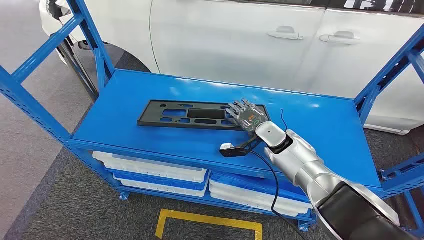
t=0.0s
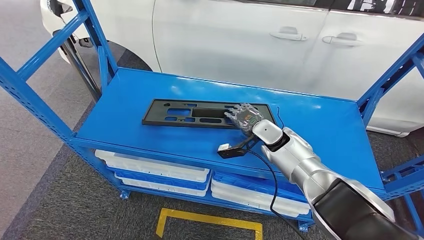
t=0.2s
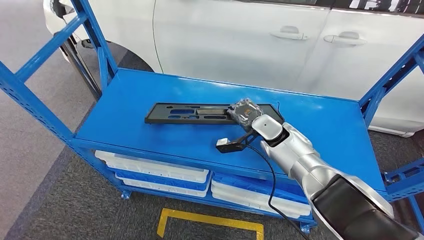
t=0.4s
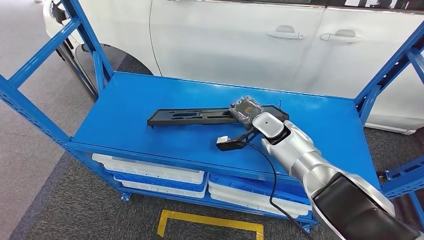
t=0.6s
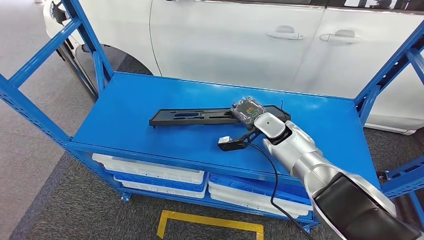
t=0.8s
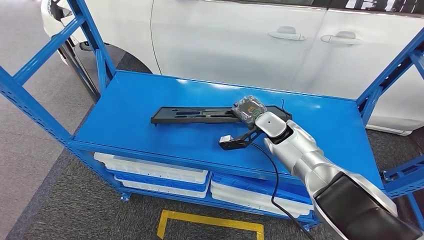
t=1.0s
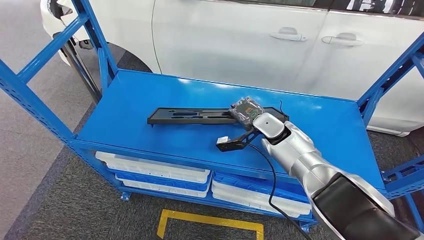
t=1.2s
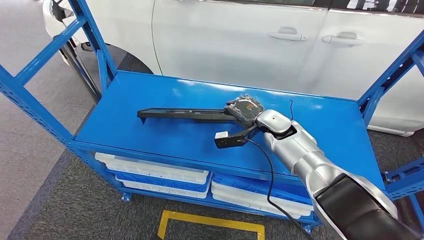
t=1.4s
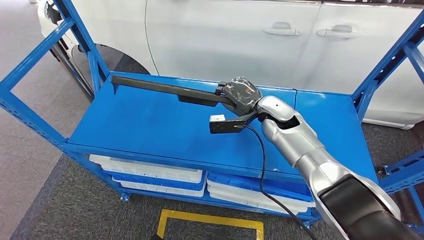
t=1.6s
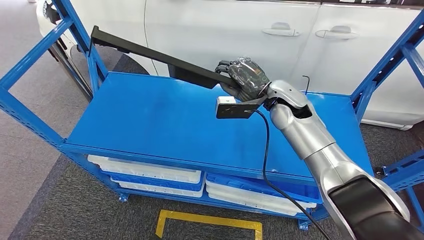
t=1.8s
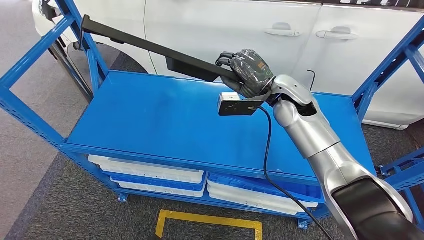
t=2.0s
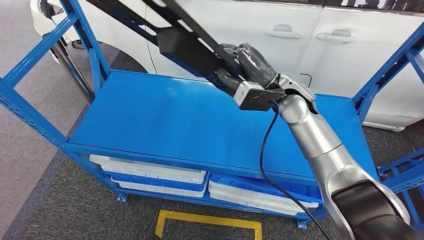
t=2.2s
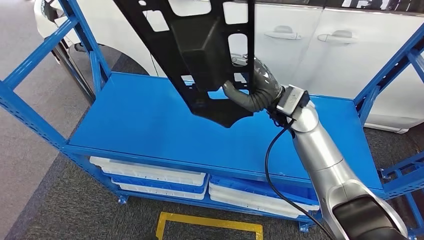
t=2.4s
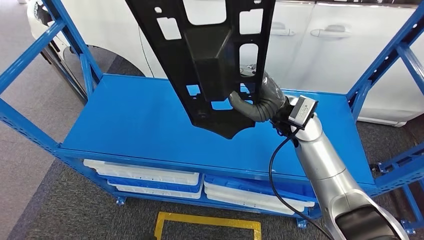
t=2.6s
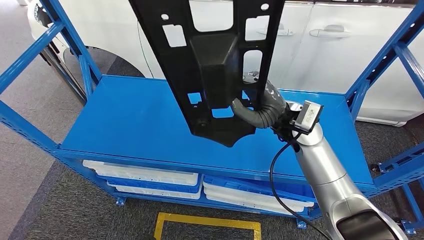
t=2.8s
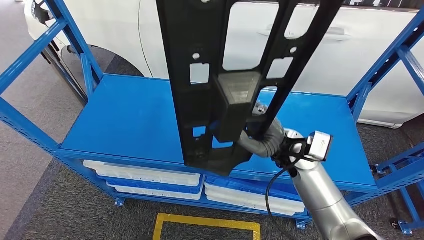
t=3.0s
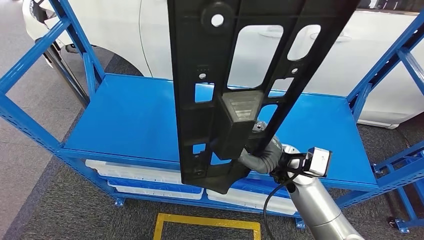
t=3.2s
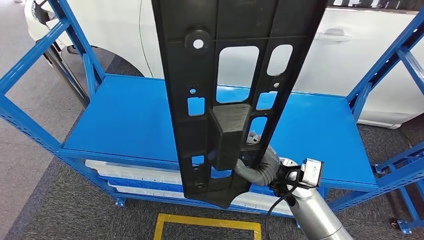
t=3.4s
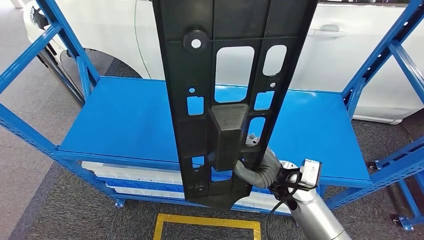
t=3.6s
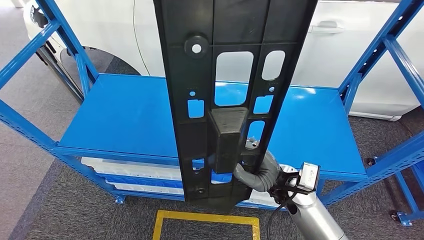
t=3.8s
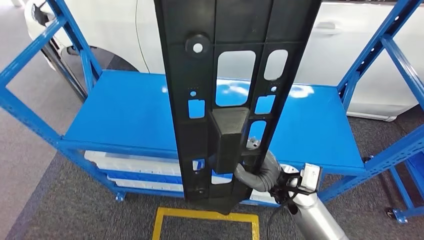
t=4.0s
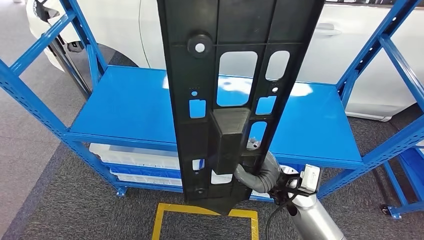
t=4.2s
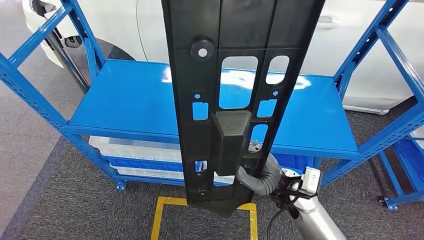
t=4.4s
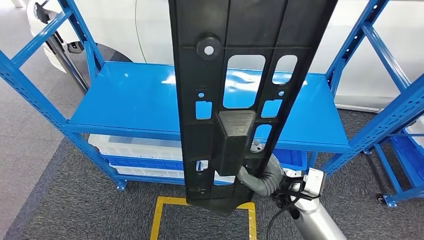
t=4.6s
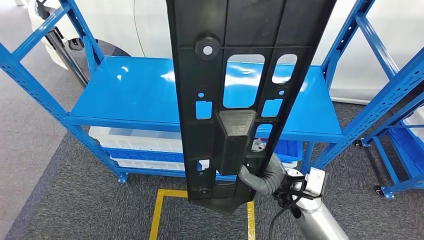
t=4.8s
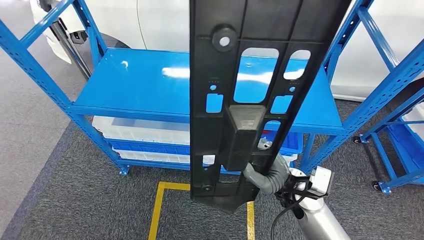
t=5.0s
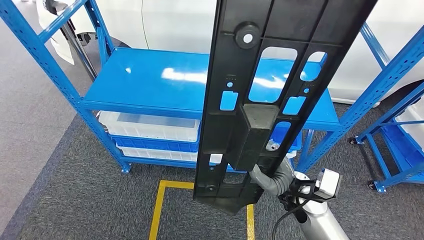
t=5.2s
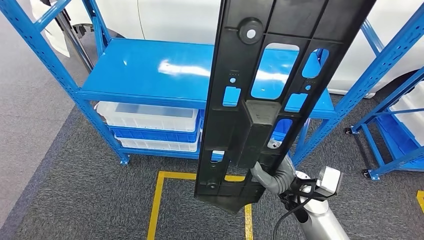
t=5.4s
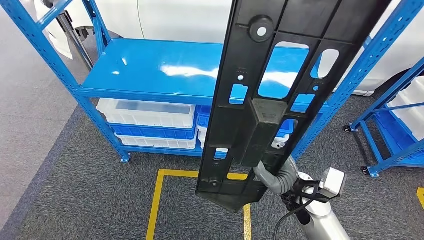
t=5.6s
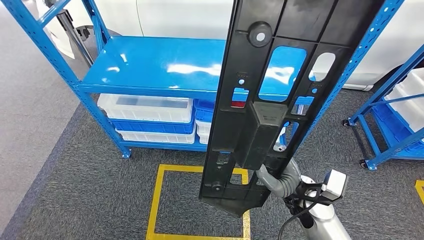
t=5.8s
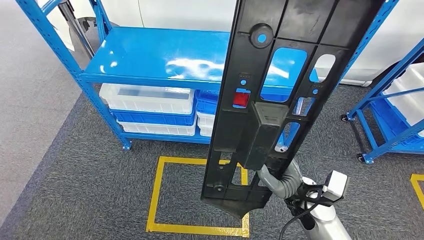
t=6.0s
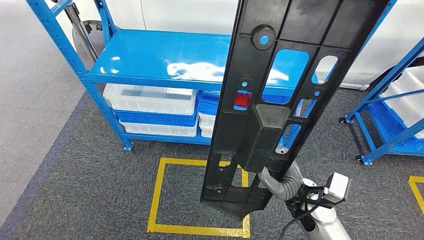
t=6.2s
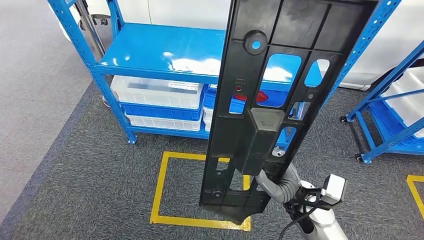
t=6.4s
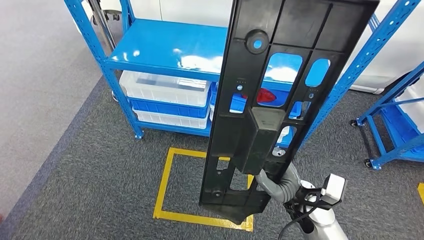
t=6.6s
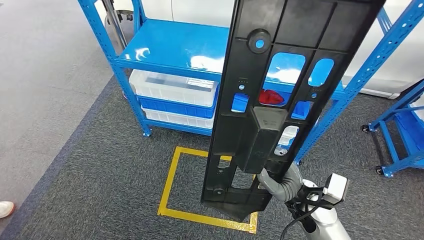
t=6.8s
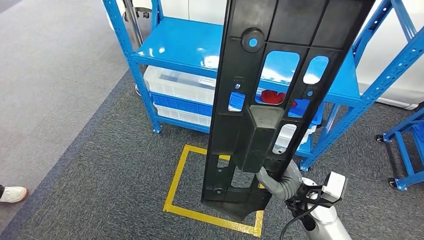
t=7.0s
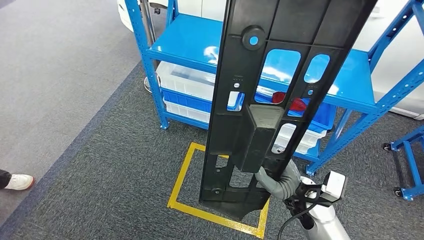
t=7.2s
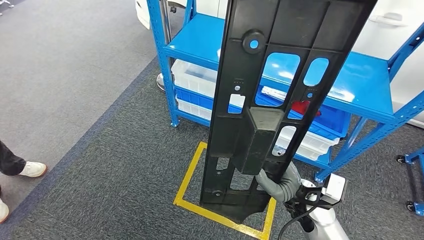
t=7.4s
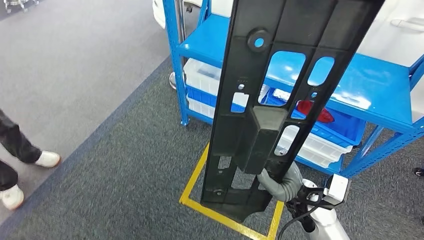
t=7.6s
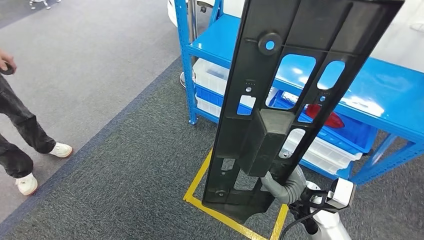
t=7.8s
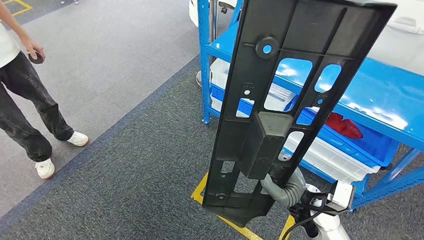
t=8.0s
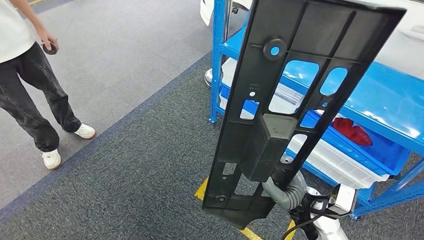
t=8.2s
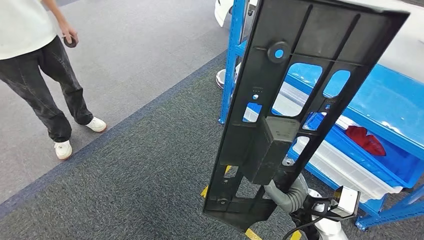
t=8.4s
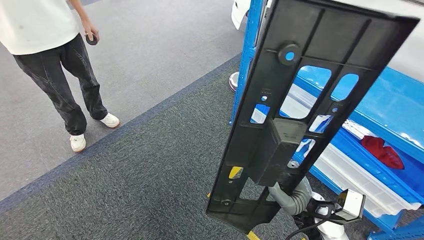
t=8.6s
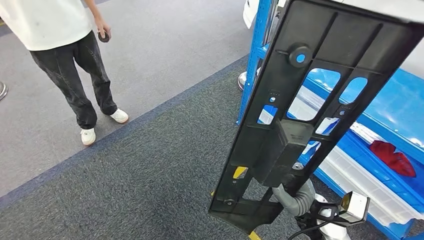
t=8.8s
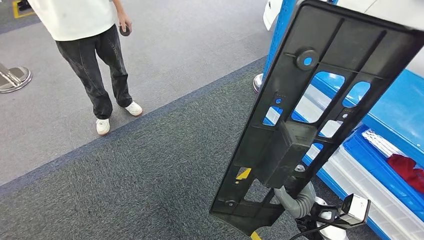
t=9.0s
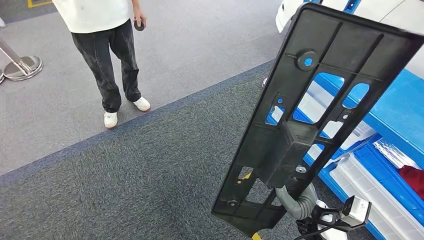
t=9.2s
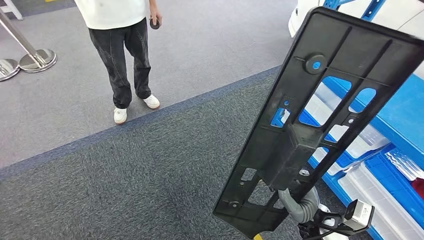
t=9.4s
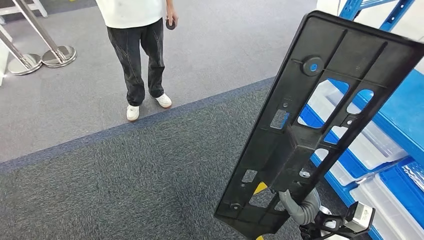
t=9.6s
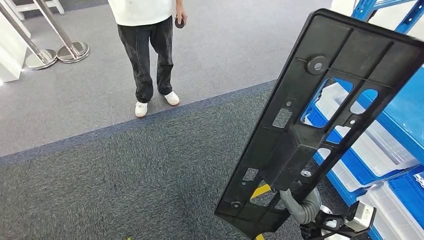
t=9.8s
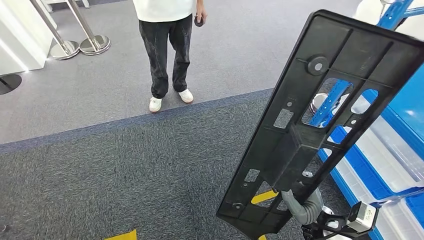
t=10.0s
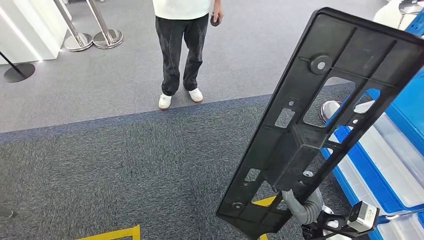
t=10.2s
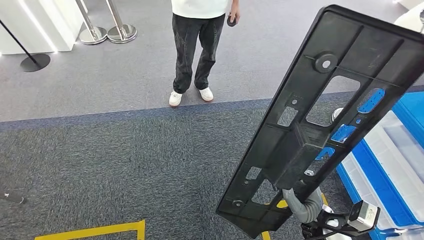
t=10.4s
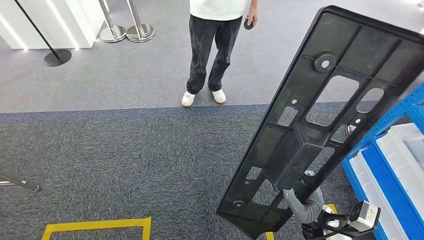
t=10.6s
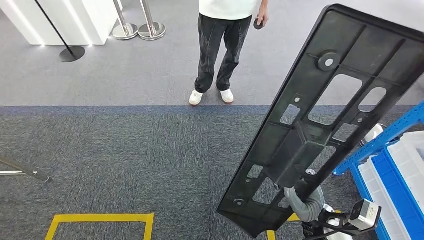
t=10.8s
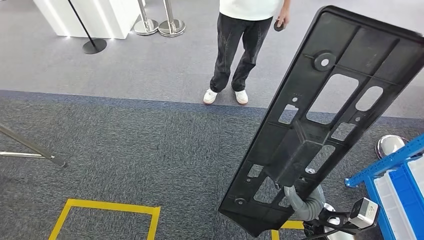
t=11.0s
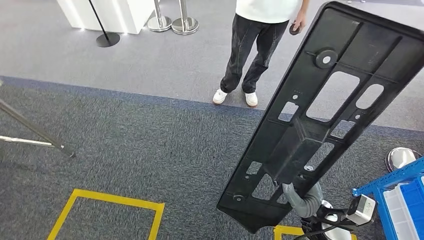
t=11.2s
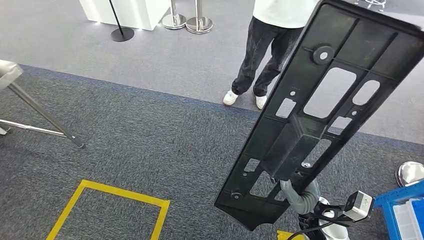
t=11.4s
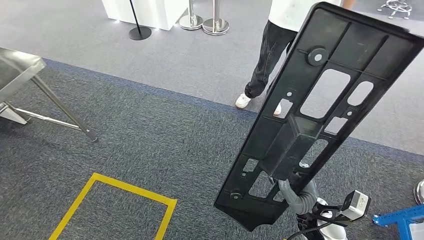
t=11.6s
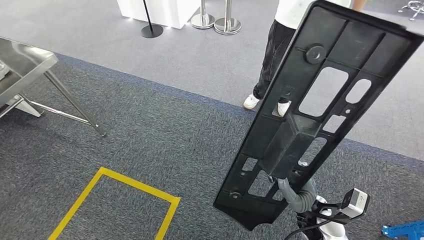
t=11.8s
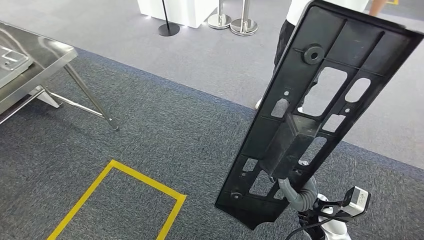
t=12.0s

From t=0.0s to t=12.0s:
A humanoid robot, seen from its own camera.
Step, from t=0.0s to t=3.4s: Pick up the large material from the shelf.

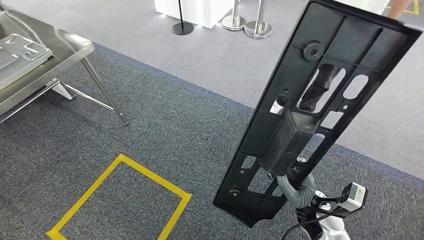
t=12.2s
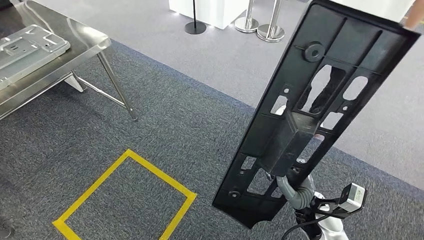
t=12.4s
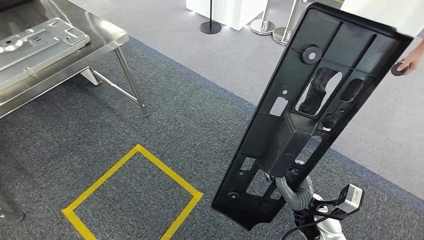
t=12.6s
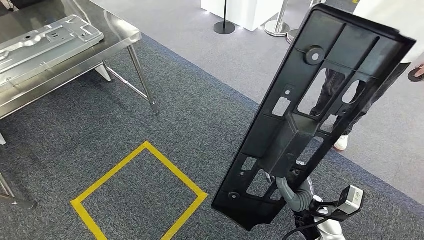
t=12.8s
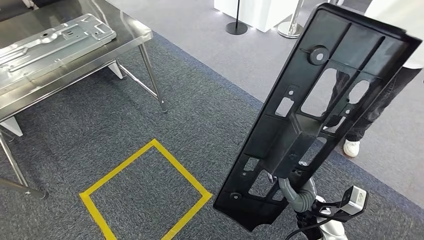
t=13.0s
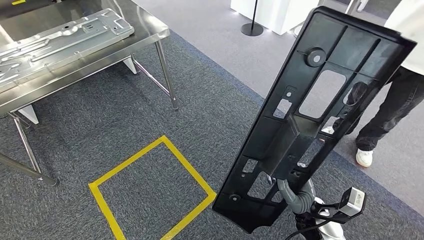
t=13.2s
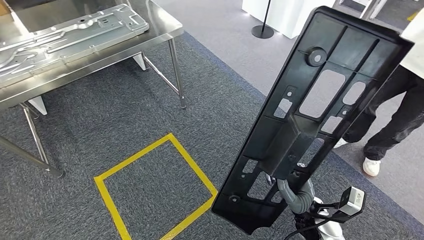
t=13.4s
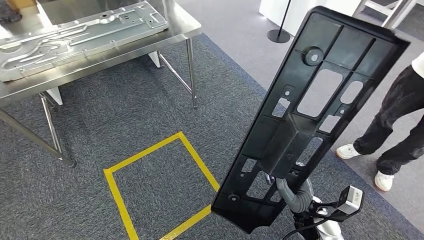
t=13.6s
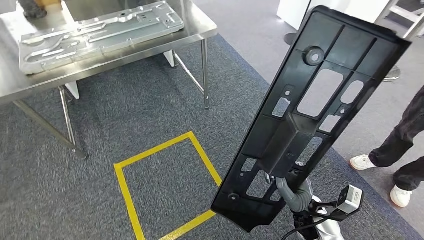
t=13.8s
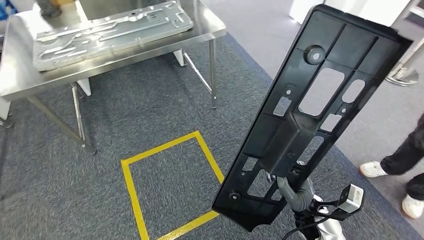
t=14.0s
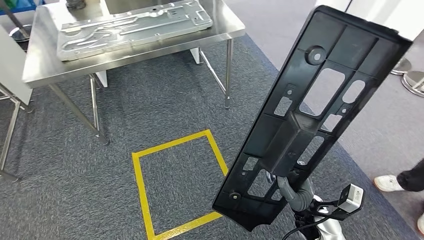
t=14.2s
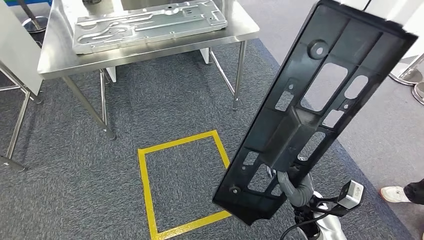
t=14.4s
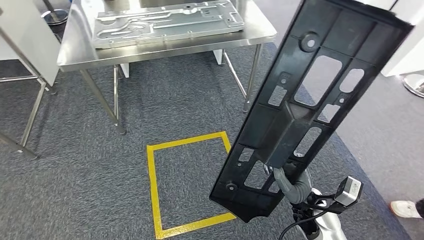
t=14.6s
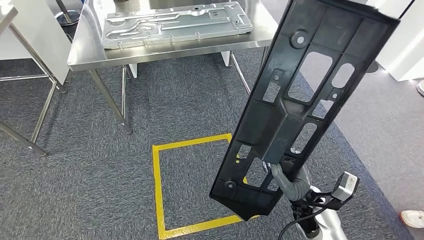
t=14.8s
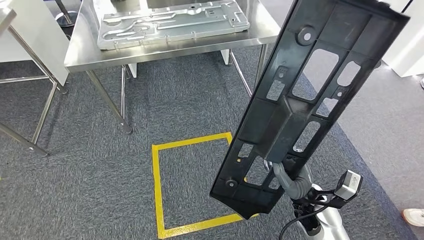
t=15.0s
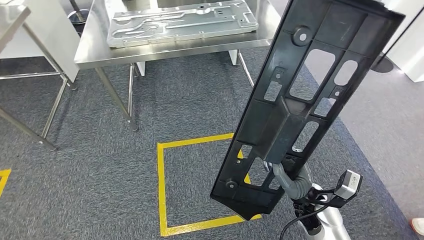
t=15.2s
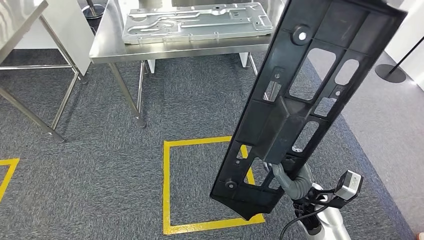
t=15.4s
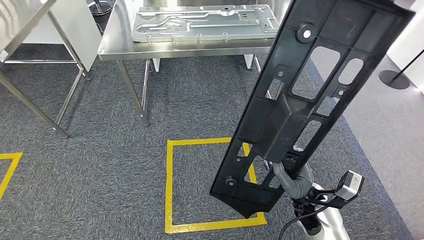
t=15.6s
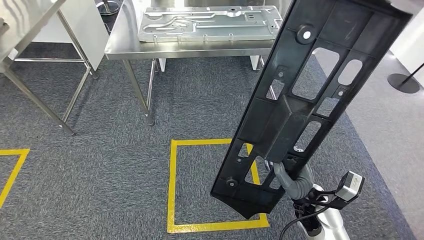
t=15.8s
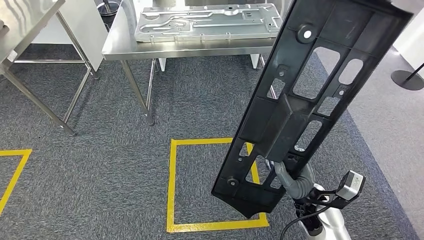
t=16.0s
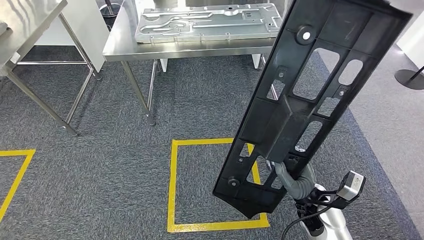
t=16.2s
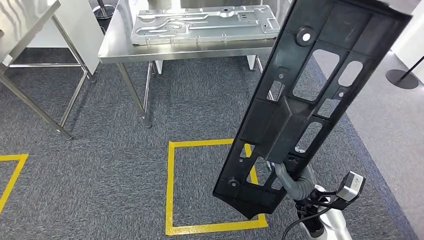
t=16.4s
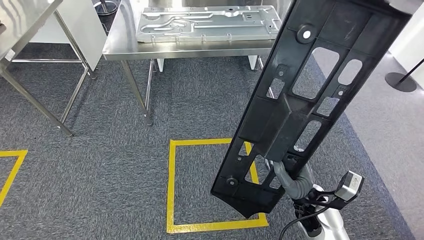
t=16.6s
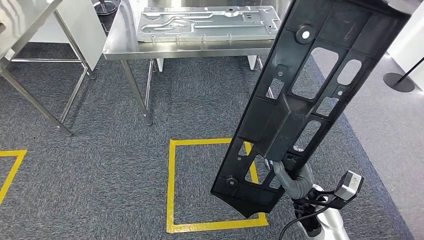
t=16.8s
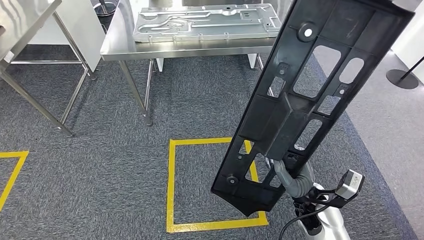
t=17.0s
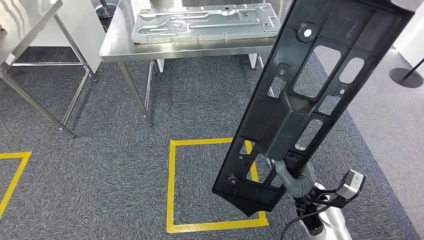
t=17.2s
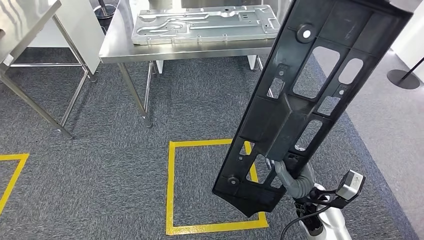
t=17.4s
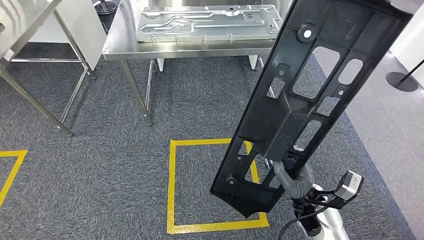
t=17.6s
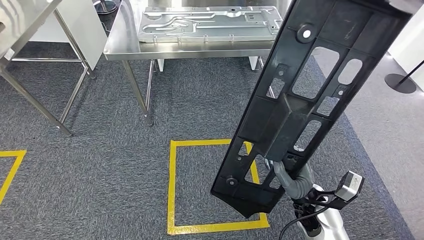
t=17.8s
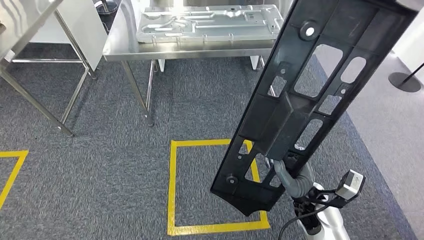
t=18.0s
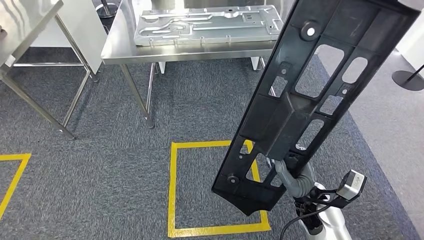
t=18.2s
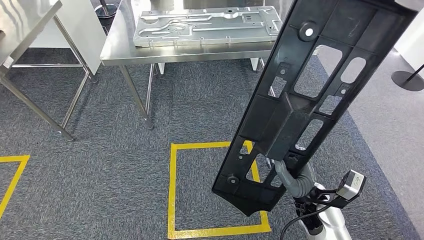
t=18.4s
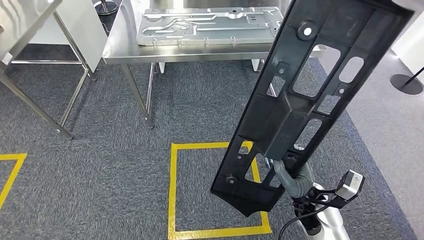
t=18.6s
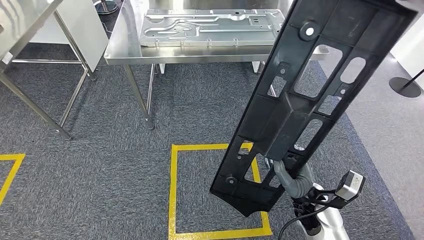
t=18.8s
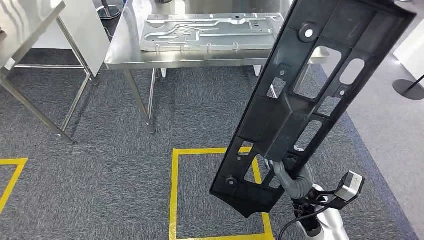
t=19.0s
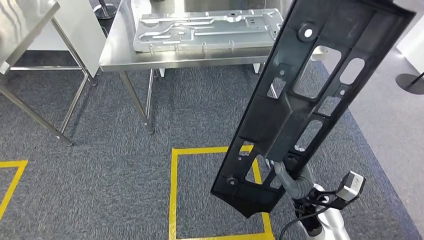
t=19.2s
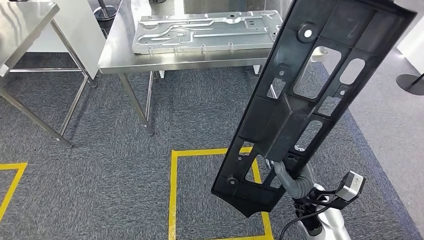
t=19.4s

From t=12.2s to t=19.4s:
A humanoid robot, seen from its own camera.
From t=16.6s to t=19.4s: Both hands stay put.
